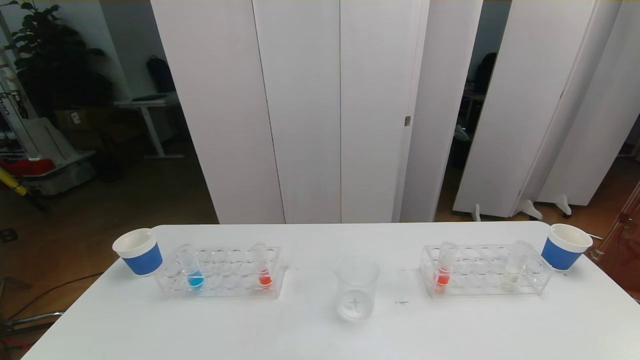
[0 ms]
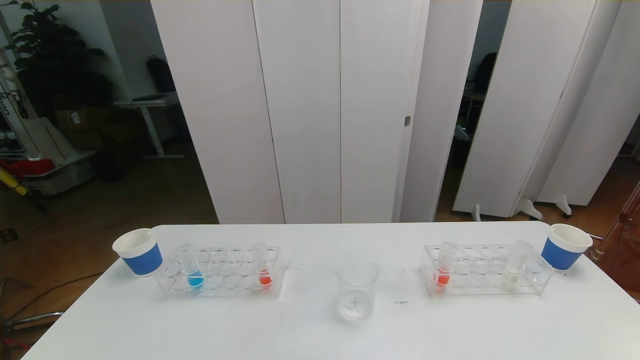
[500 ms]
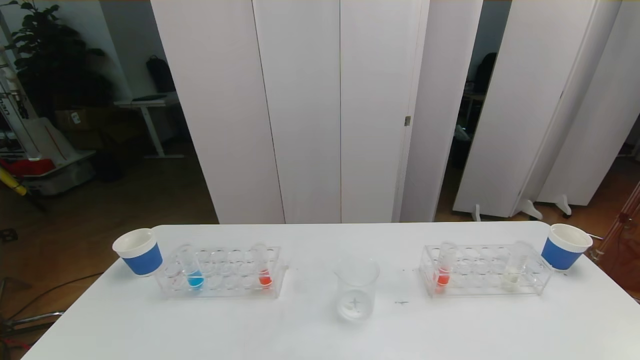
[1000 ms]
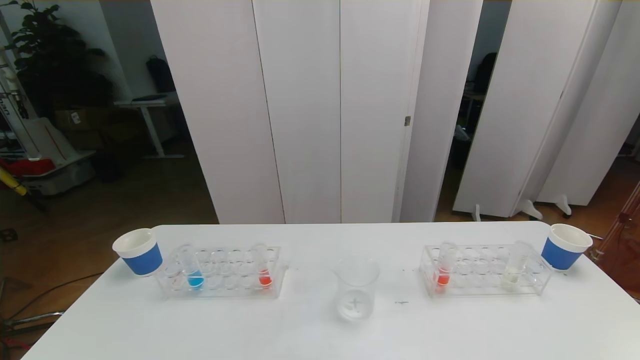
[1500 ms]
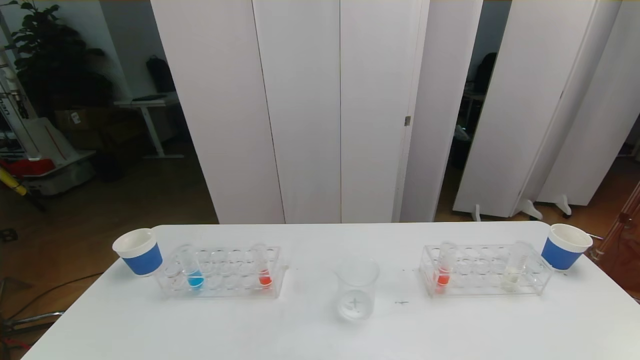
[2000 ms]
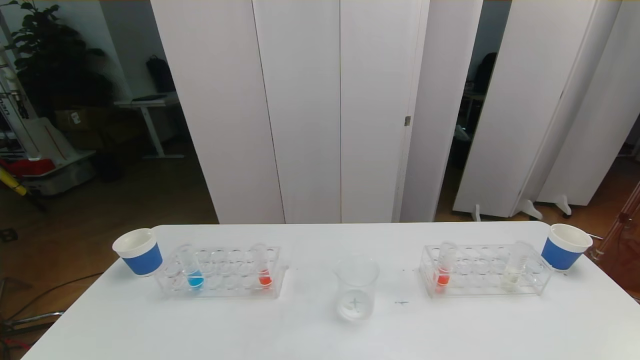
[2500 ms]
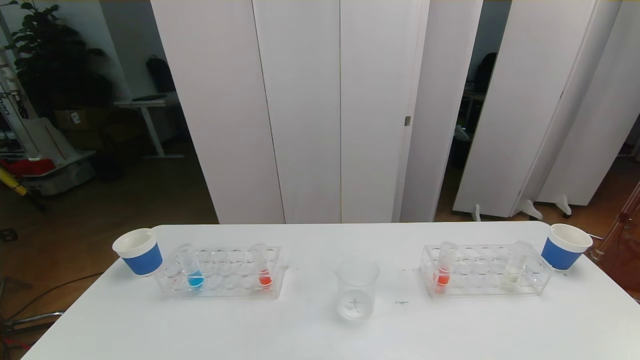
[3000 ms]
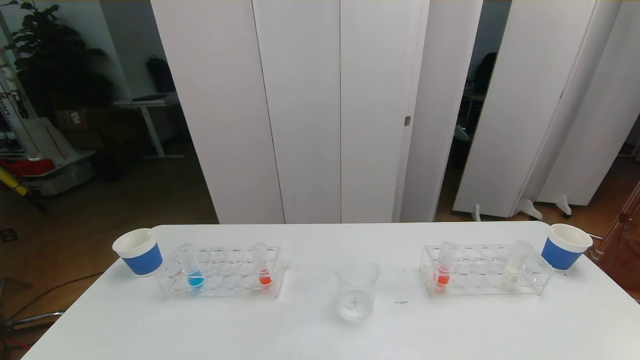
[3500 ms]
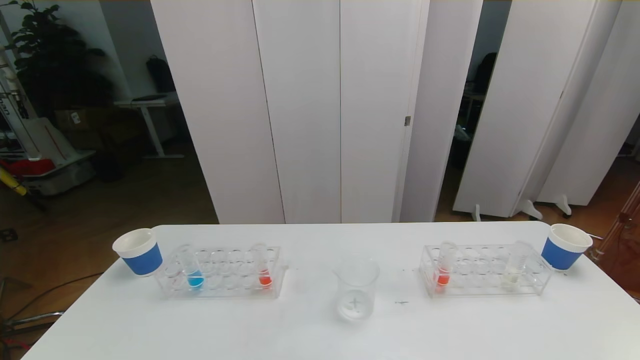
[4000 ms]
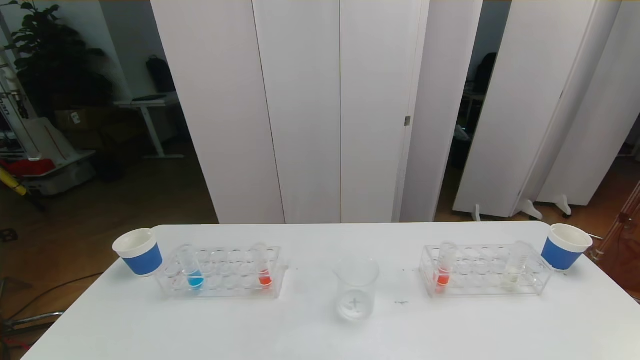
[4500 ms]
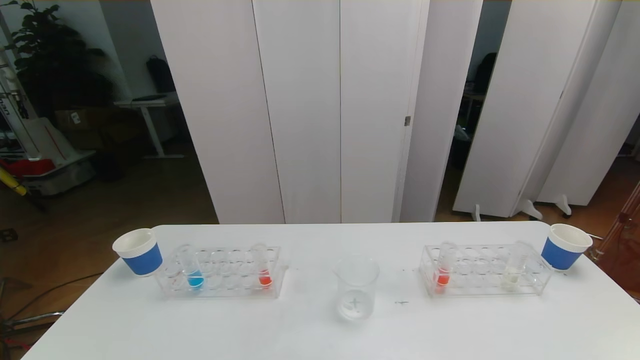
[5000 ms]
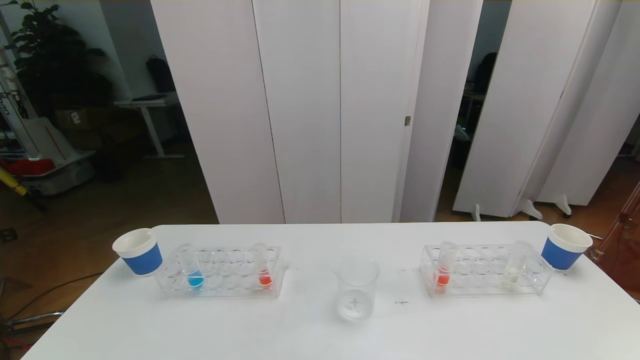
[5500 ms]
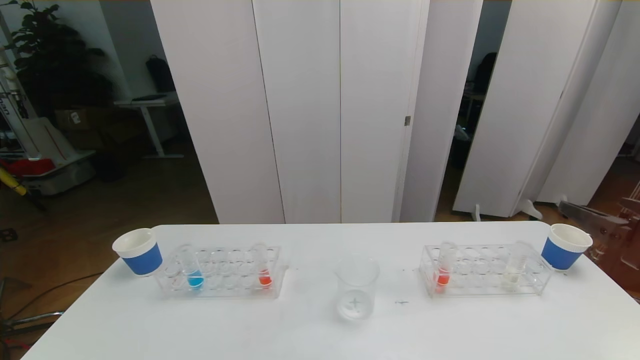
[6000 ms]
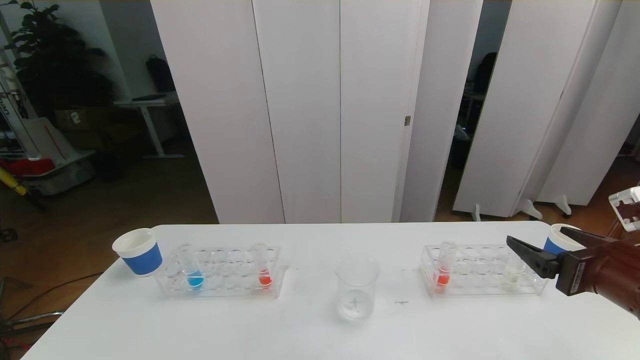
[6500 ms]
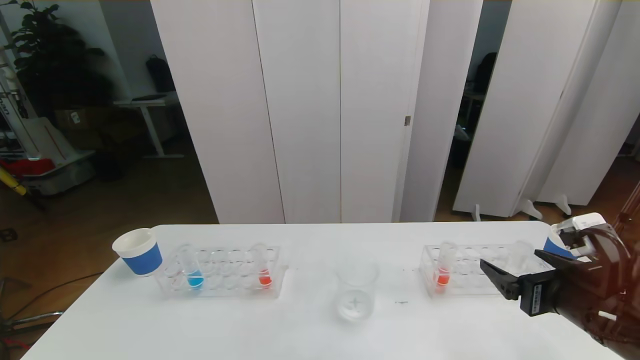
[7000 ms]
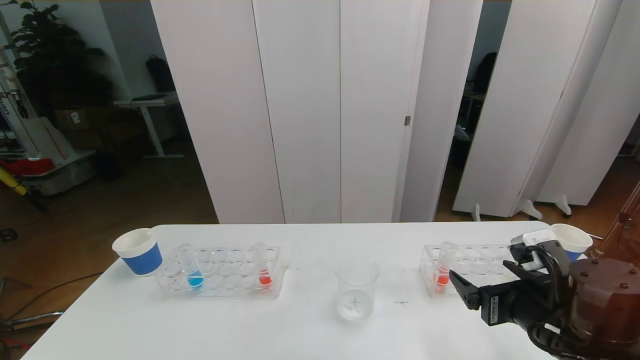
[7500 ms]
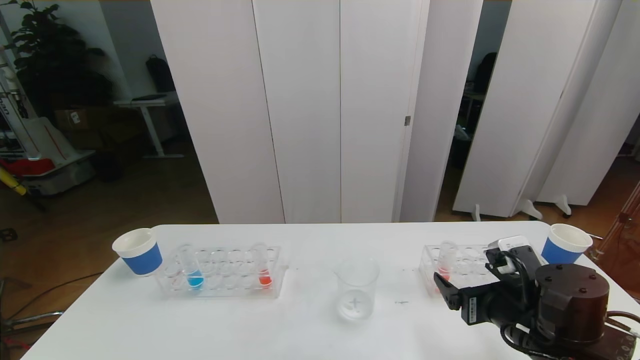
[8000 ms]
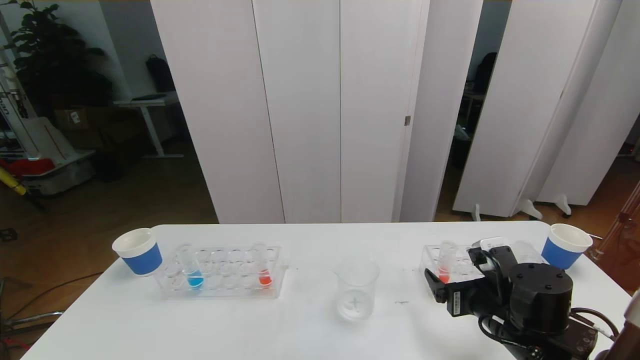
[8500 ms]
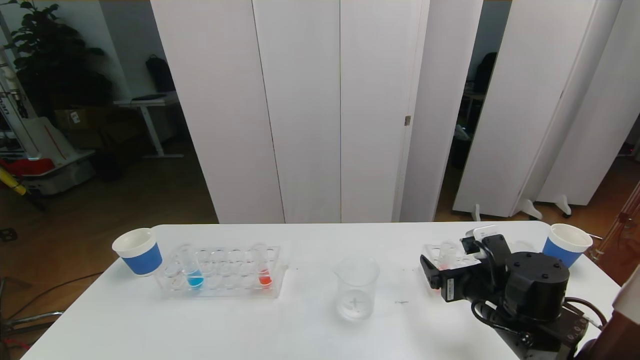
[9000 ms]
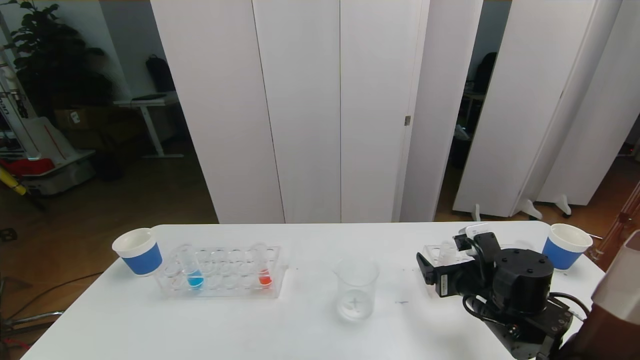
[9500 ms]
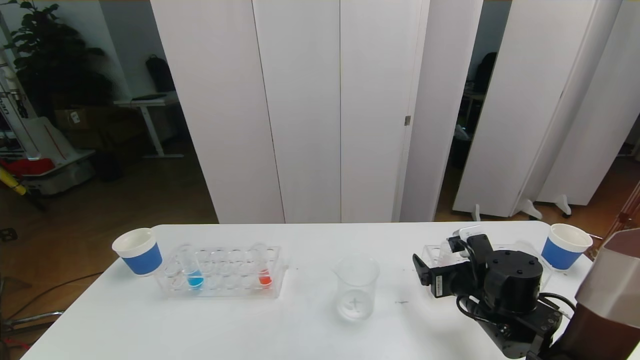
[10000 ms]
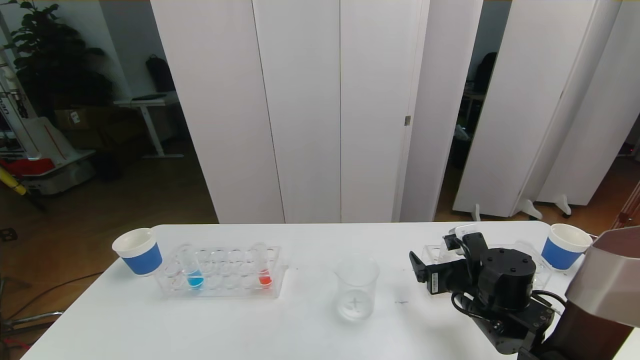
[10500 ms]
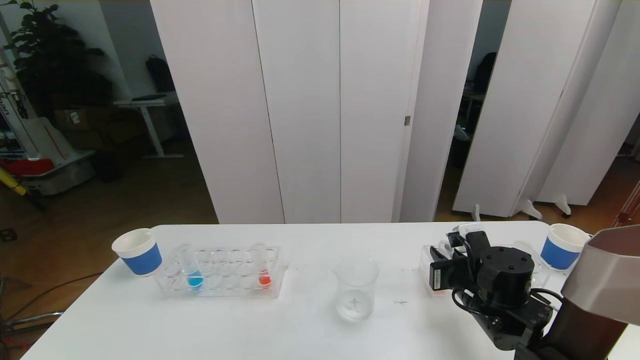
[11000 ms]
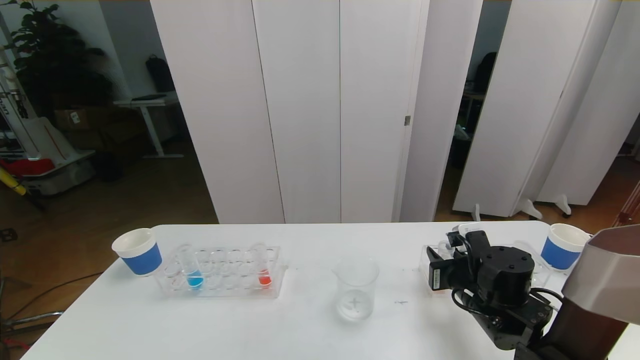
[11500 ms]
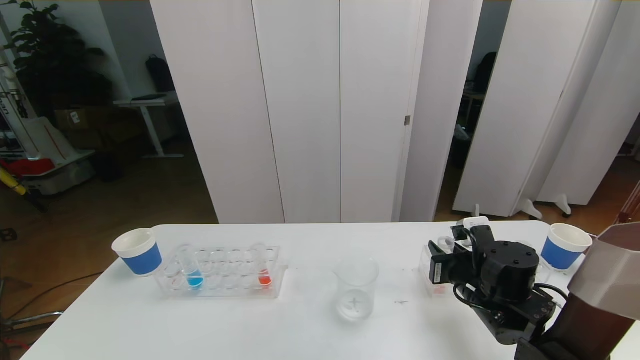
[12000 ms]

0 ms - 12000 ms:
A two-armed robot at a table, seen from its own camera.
Task of the whole recording: pick up the test tube with red pigment the test tube with blue pigment and the test tube with white pigment by grippers and pour them into the beaker.
0 ms - 2000 ms: Neither gripper changes place.
6000 ms - 8000 ms: The right gripper shifts approximately 20 cm downward and to the left.
8000 ms - 10000 ms: The right gripper travels forward by roughly 5 cm.
10000 ms - 12000 ms: The right gripper closes up.

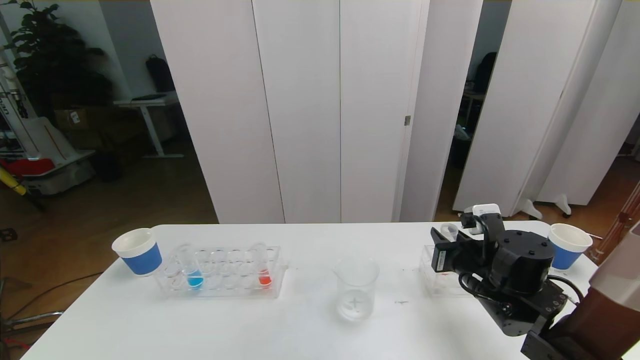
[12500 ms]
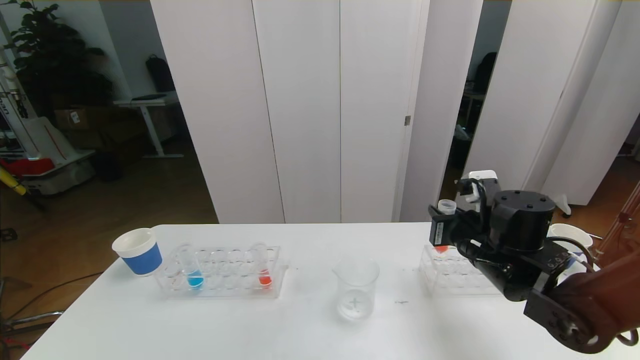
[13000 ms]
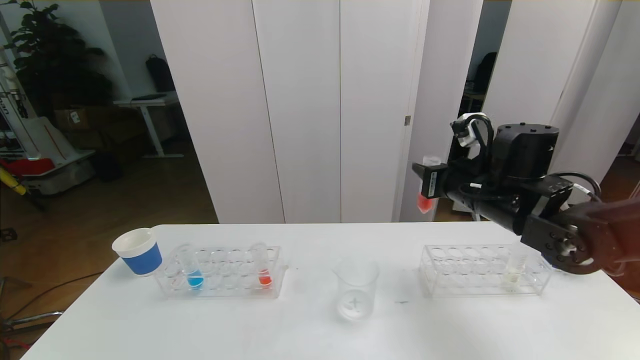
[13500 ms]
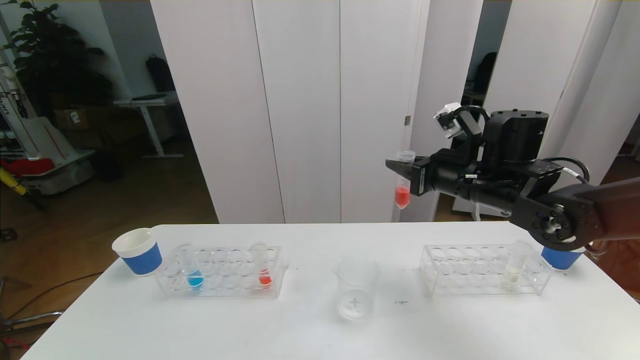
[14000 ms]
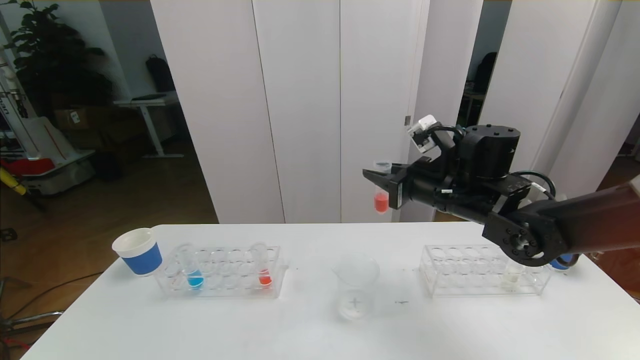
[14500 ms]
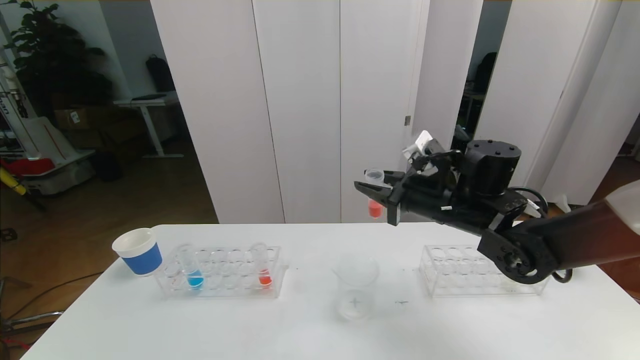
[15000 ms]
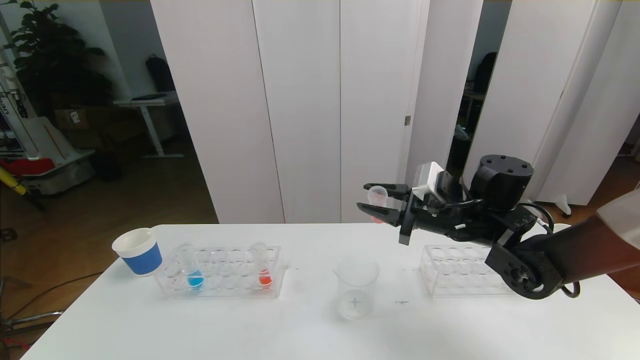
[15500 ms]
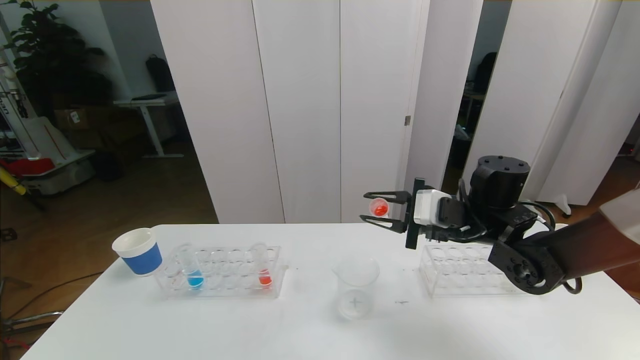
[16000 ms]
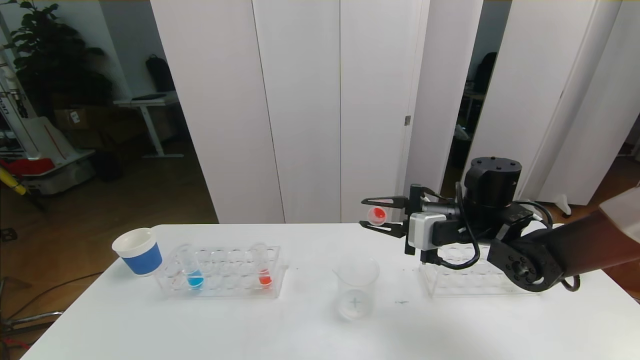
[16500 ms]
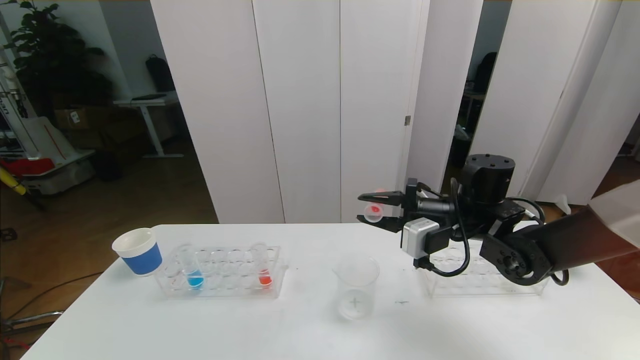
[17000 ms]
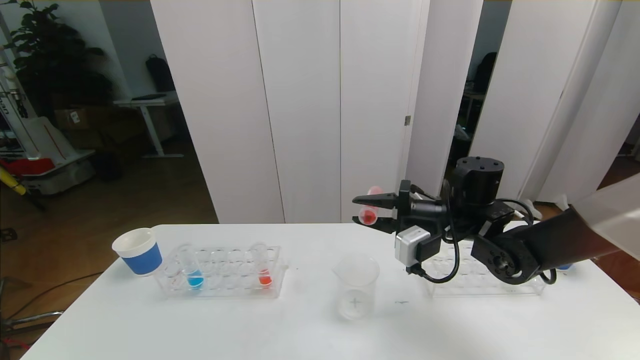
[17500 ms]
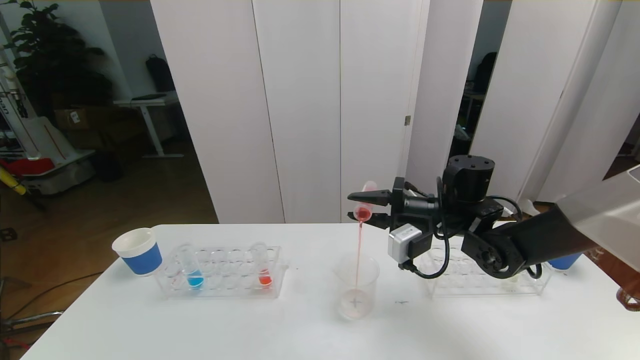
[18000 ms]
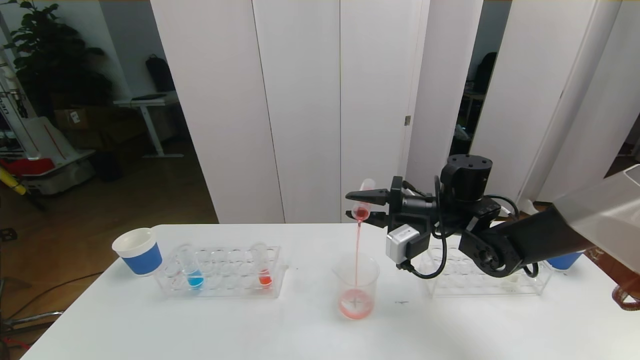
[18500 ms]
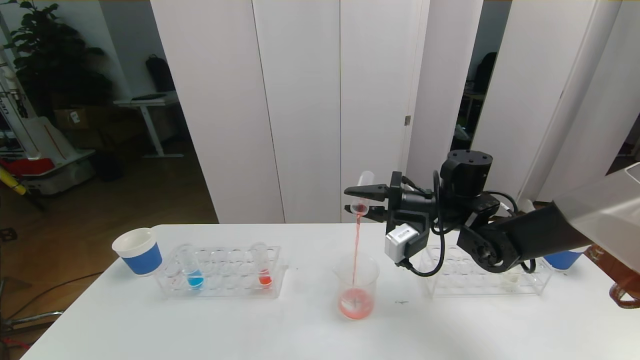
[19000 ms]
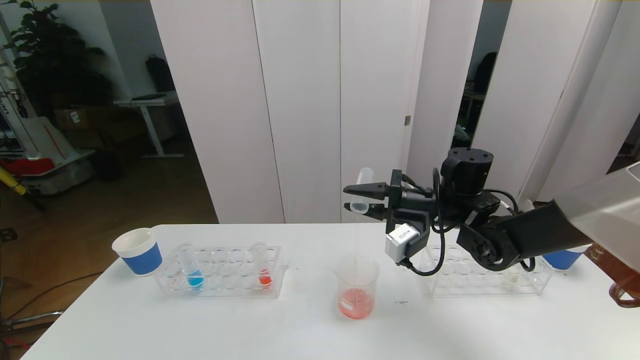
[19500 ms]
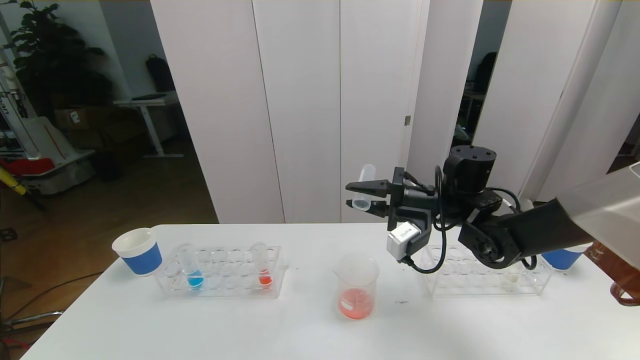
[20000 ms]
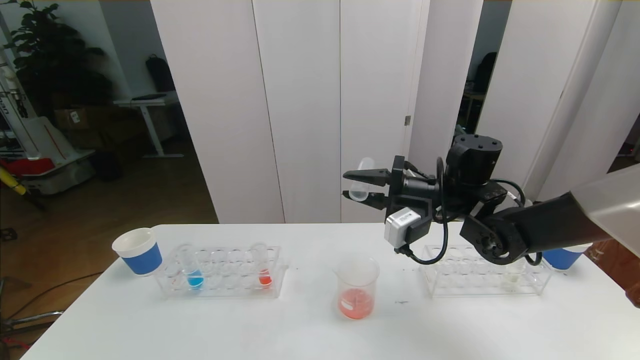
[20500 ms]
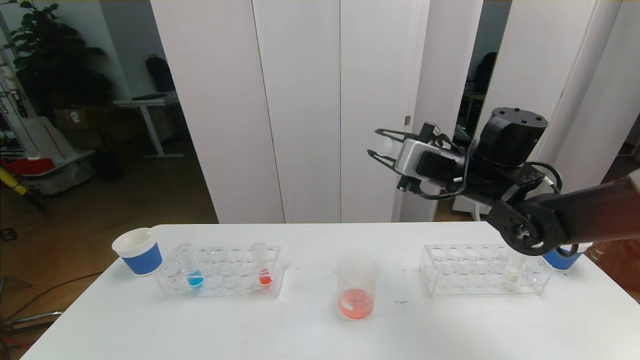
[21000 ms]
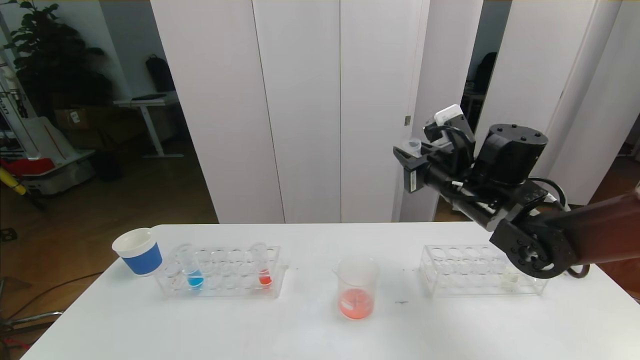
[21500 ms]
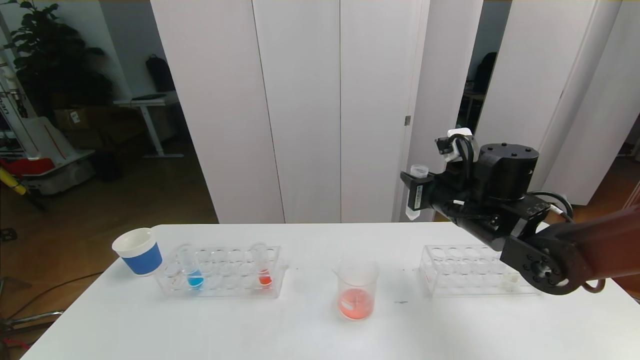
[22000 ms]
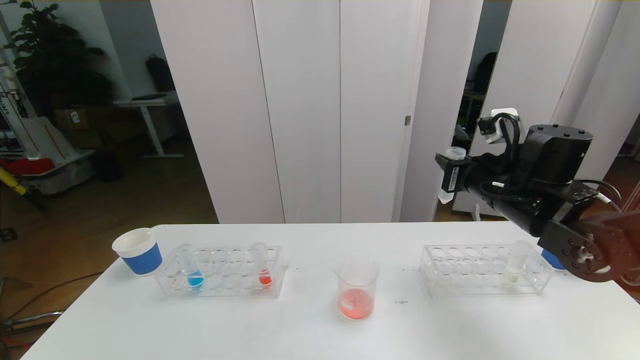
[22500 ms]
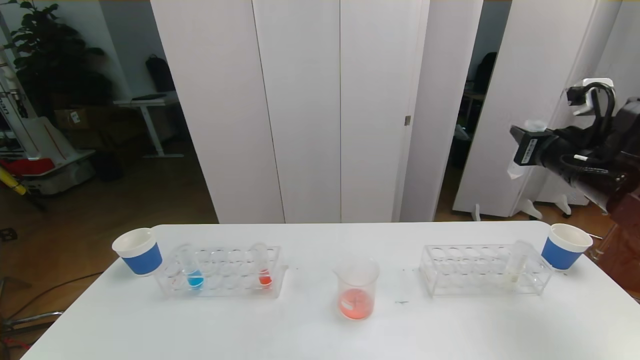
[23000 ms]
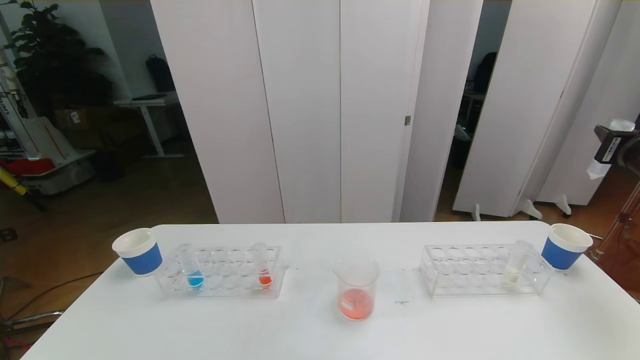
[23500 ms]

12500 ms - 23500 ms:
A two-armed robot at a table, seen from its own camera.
Task of the whole recording: pick up the test tube with red pigment the test tube with blue pigment and the test tube with white pigment by grippers and pour them into the beaker.
12500 ms - 14500 ms: The right gripper goes roughly 15 cm upward and forward.
18000 ms - 20000 ms: There are only small adjustments of the grippers.
20000 ms - 21500 ms: The right gripper changes place by about 5 cm.
21500 ms - 23500 ms: The right gripper goes roughly 25 cm to the right.
